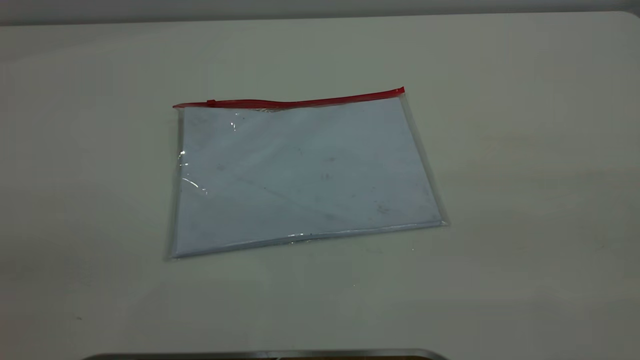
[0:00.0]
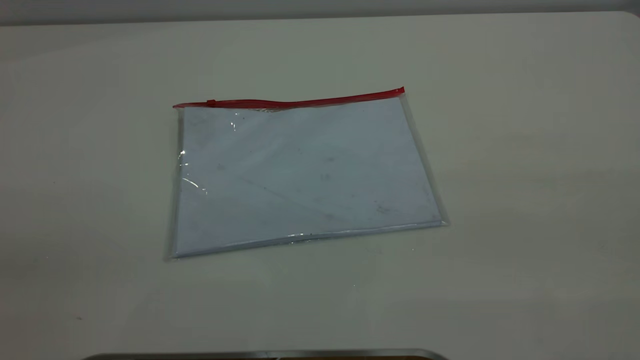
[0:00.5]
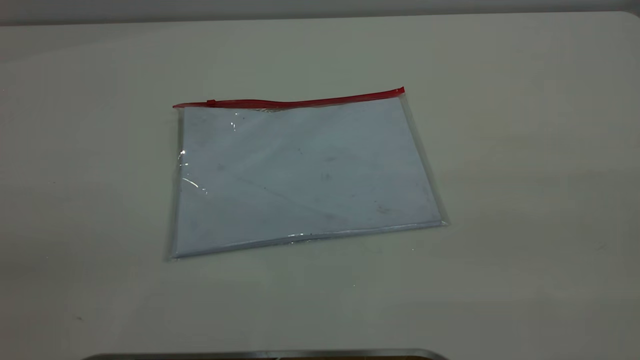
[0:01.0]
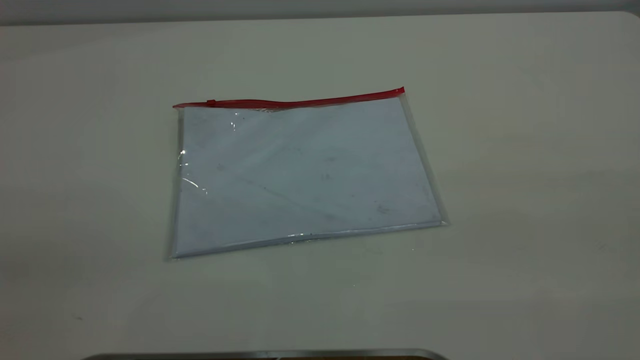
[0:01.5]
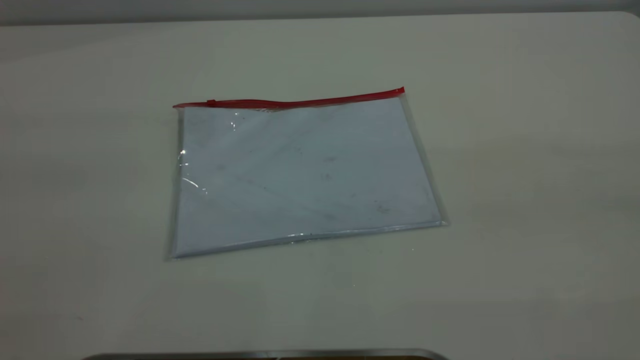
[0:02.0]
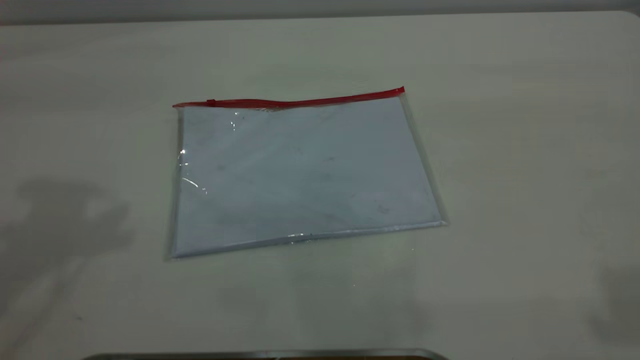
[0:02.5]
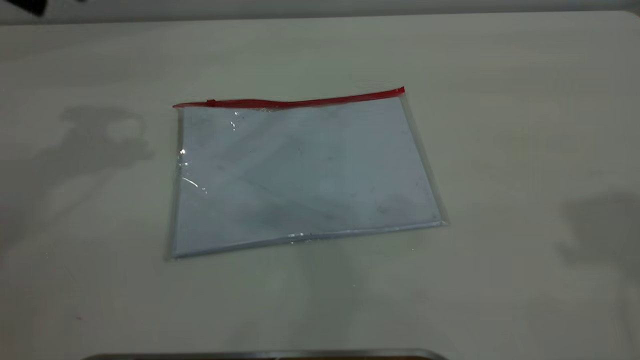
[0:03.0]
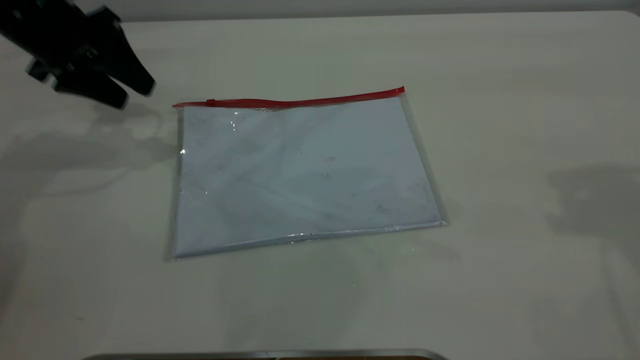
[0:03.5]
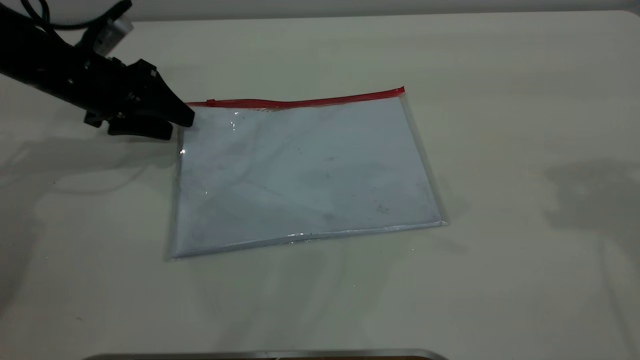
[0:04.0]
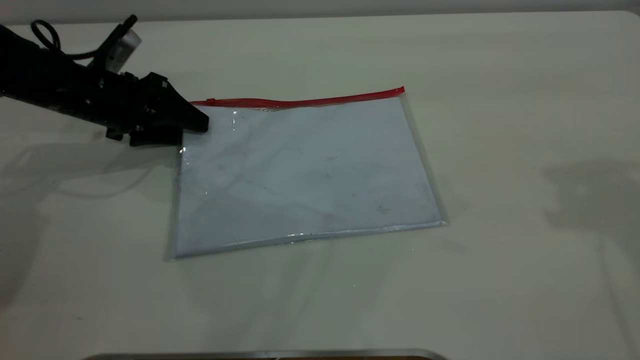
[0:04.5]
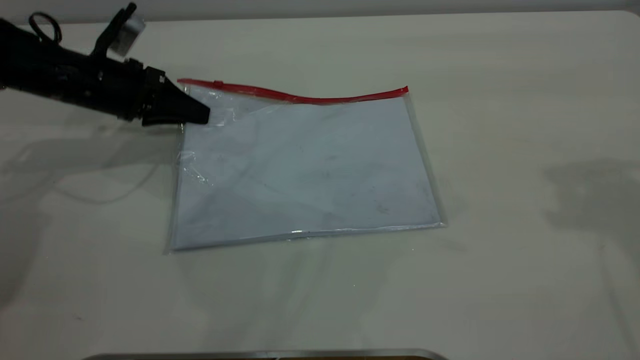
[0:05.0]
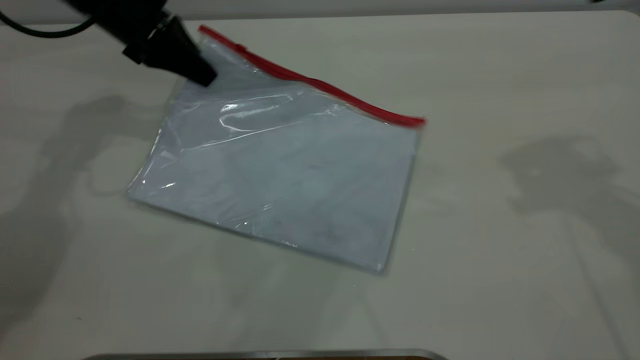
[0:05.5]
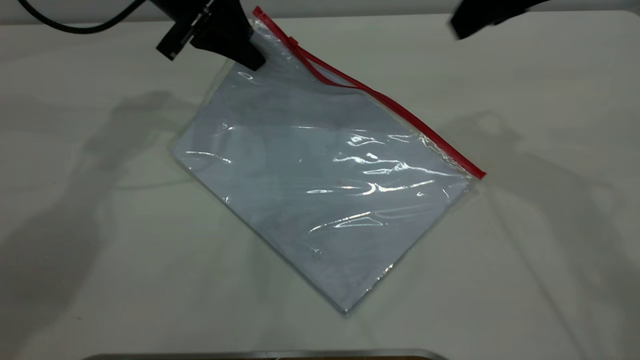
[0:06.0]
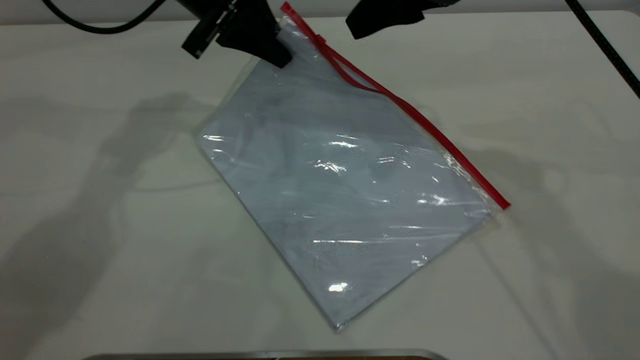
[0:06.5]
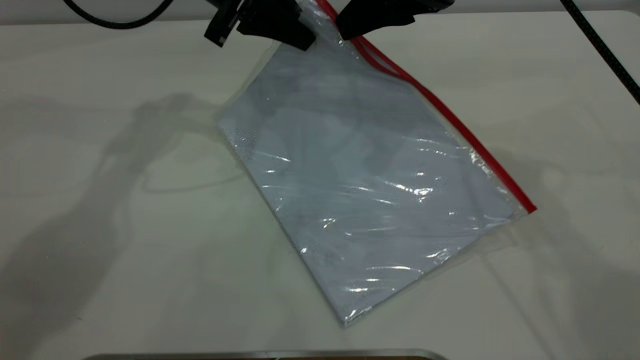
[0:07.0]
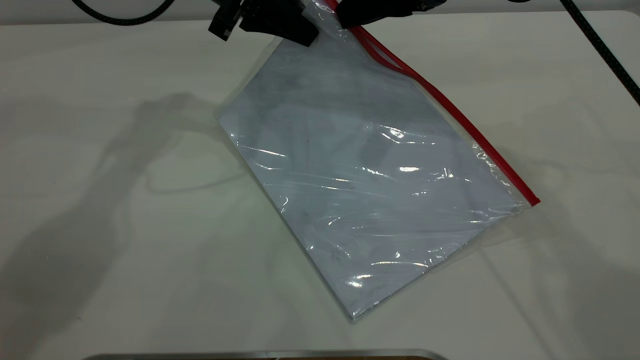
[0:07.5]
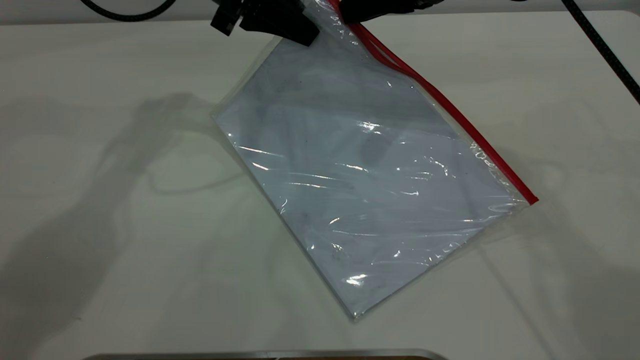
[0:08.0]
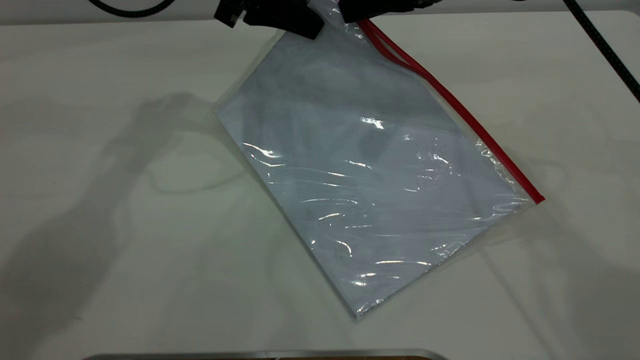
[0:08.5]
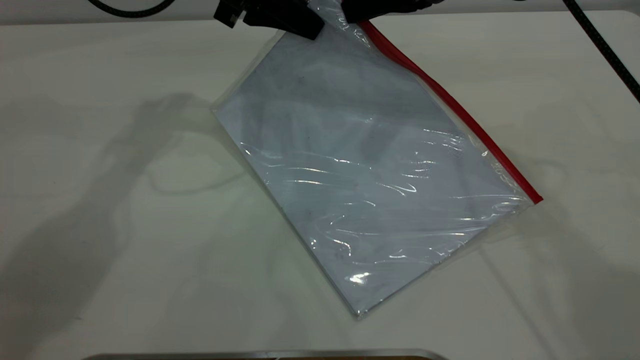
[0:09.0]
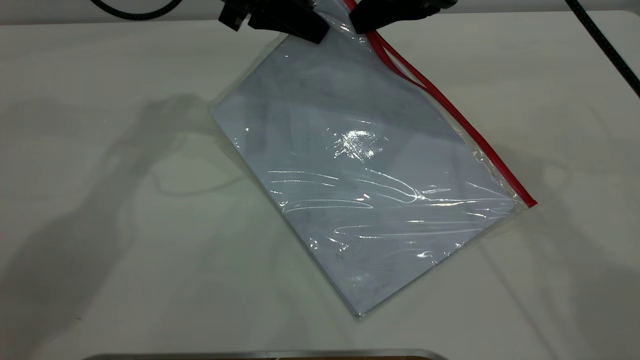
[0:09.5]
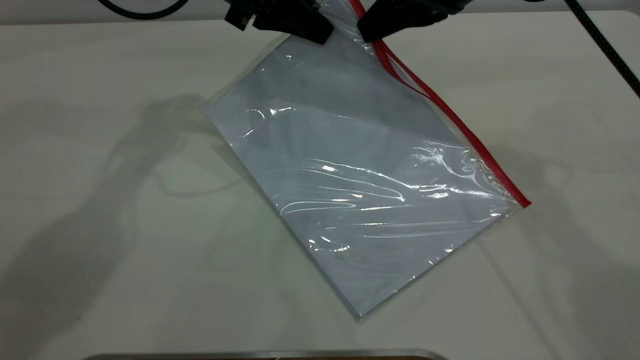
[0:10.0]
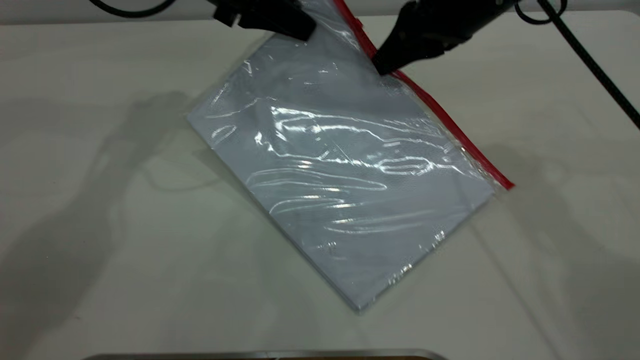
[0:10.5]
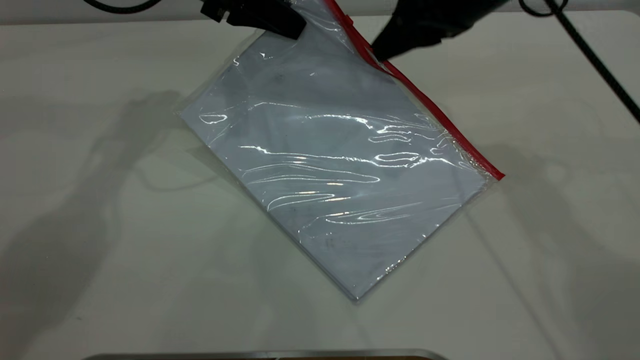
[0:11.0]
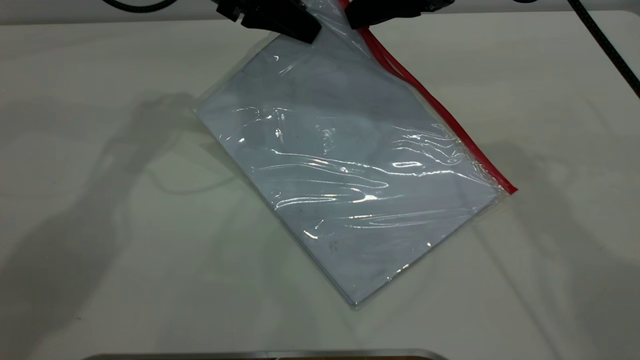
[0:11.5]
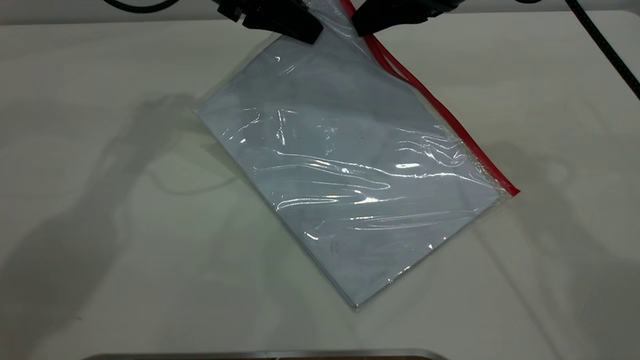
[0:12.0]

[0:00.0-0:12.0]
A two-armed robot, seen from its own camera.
Step, 0:00.0 to 0:05.0: Pick up the transparent plastic bag with the left gripper.
0:02.0 to 0:04.0: The left gripper heads downward and forward, covering roughly 50 cm.
0:04.0 to 0:06.0: The right gripper is displaced to the left, forward and downward by approximately 15 cm; the left gripper heads to the right, upward and forward, covering approximately 15 cm, and closes up.
0:06.0 to 0:08.0: The right gripper moves to the left, roughly 5 cm, and closes.
0:08.0 to 0:12.0: The grippers move only a little.

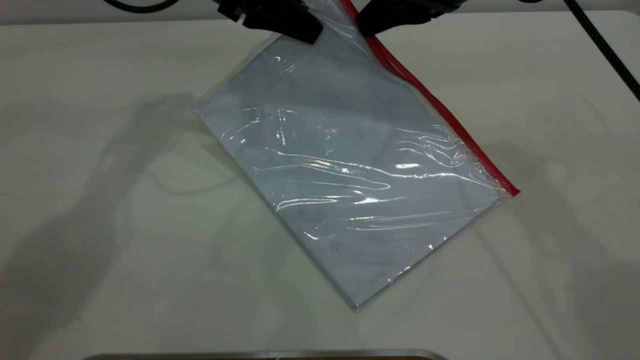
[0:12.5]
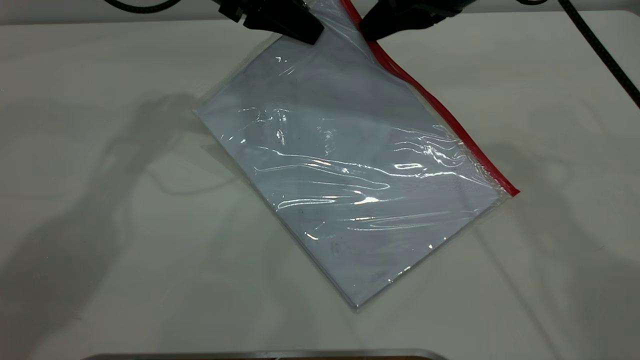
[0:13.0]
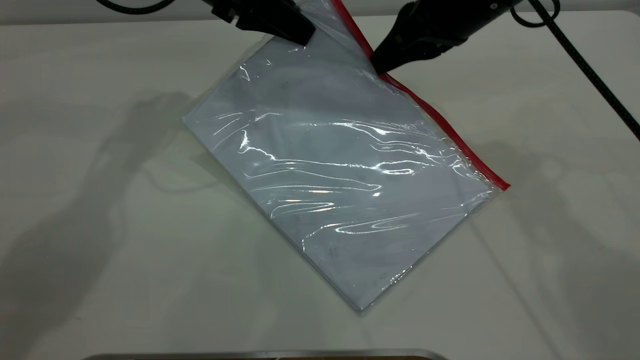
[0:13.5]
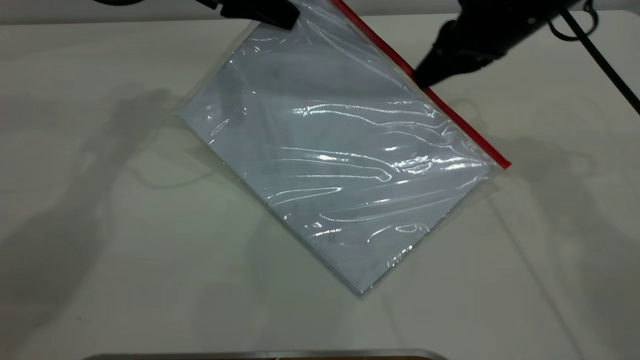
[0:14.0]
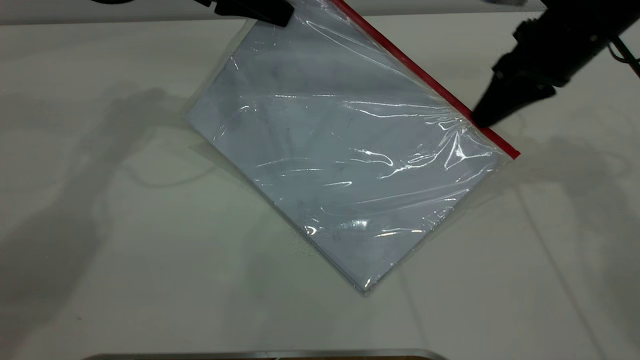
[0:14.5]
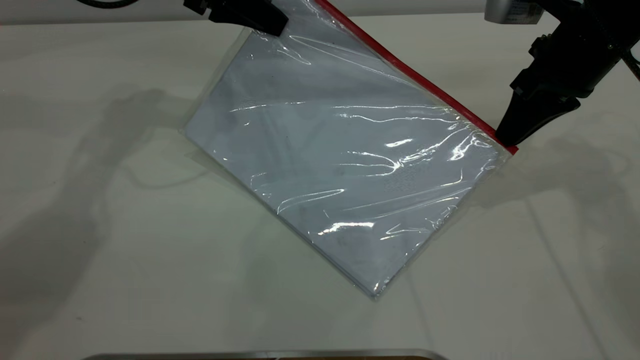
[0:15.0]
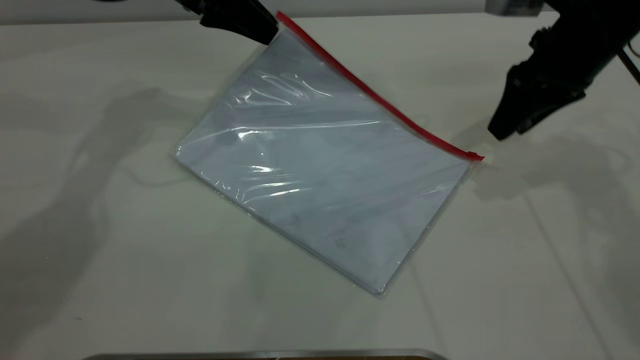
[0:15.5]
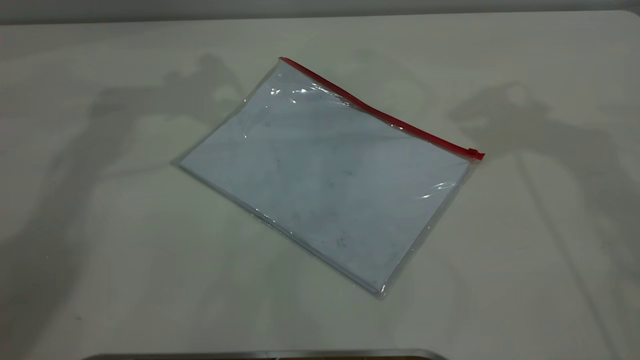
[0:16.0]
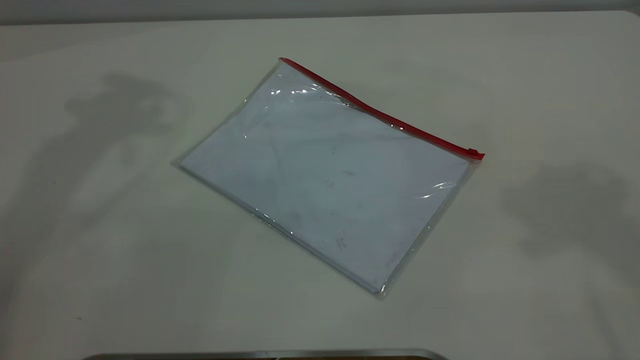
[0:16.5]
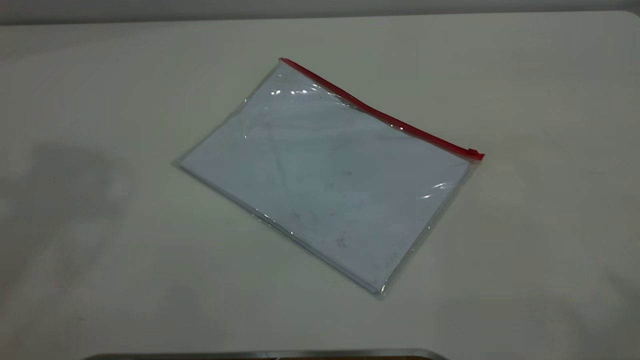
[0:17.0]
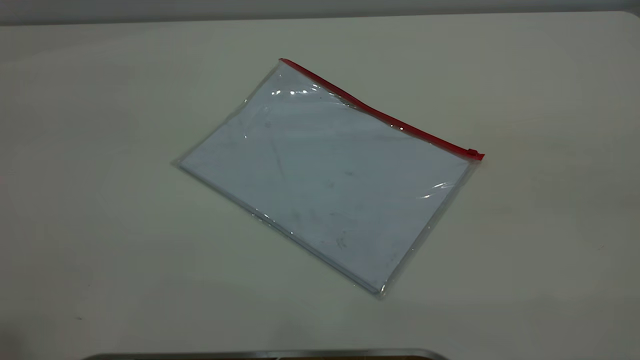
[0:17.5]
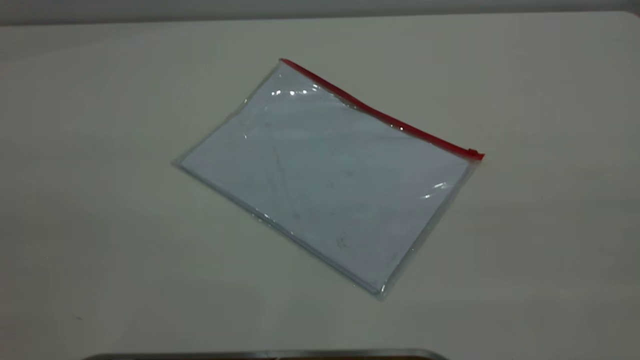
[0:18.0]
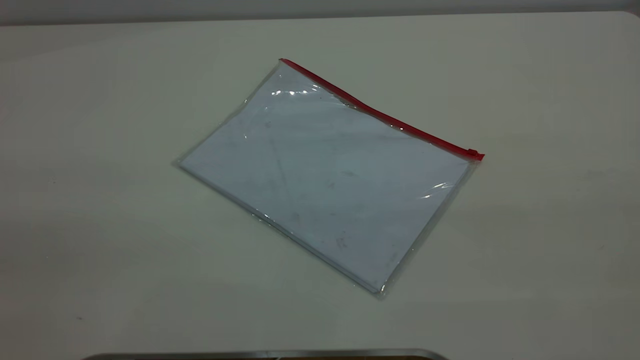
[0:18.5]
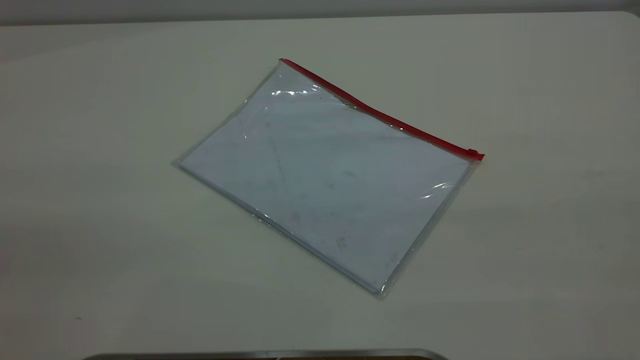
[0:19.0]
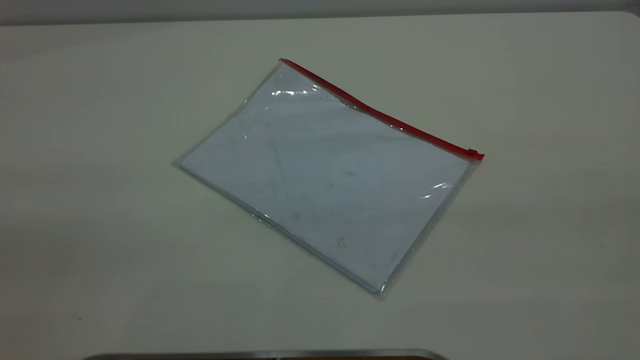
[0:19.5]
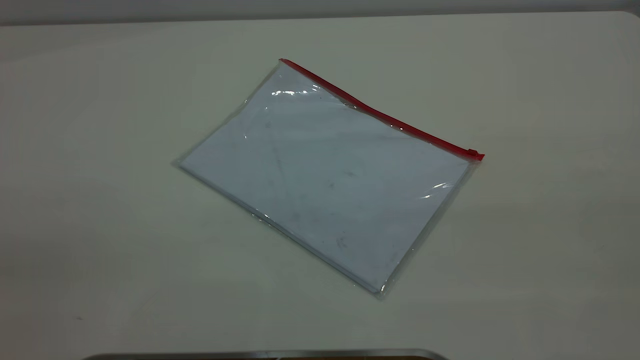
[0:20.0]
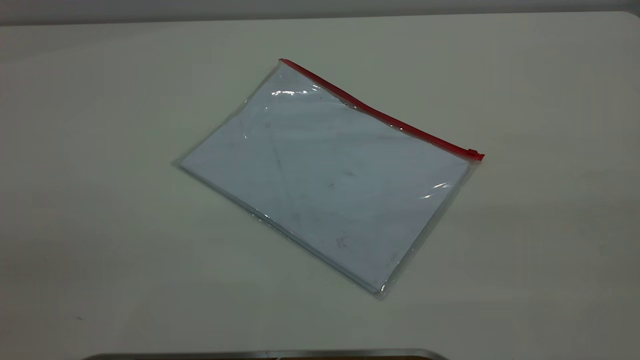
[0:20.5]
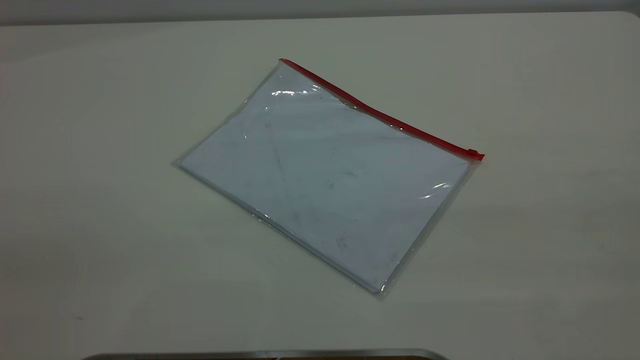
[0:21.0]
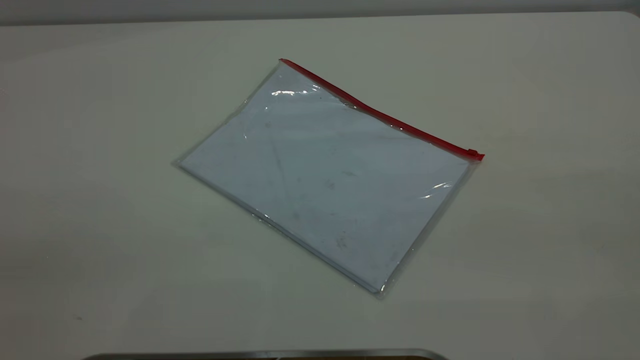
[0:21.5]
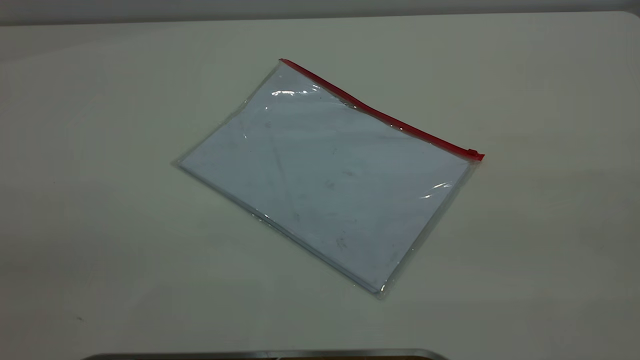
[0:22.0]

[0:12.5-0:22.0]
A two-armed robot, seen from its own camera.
Step, 0:12.5 to 0:15.0: Pulling up the zipper on the transparent plastic bag with the right gripper to close it.
0:12.5 to 0:14.5: The right gripper goes approximately 10 cm to the right and downward.
0:14.5 to 0:16.5: Both grippers move upward, some 35 cm. The right gripper opens up; the left gripper opens up.
